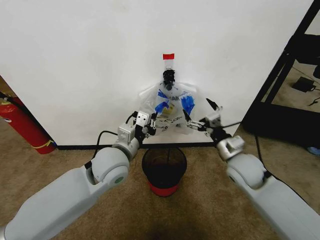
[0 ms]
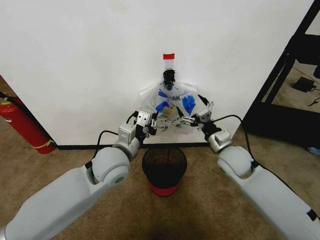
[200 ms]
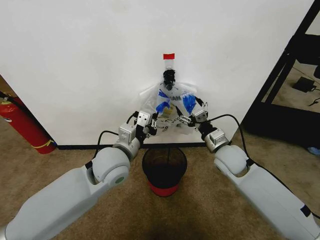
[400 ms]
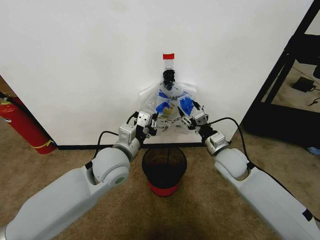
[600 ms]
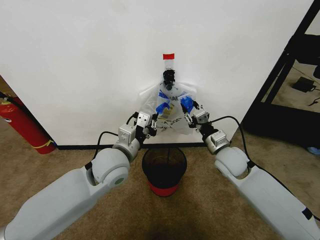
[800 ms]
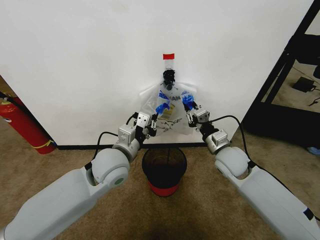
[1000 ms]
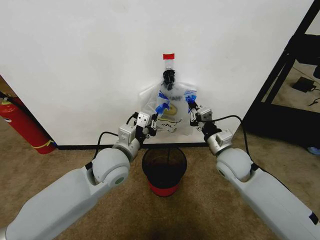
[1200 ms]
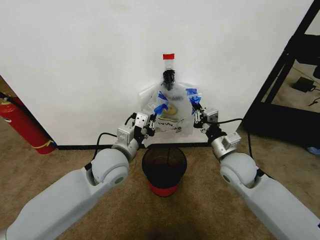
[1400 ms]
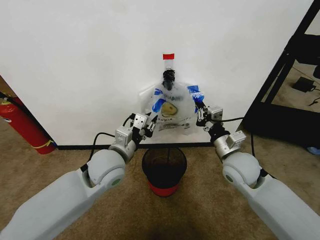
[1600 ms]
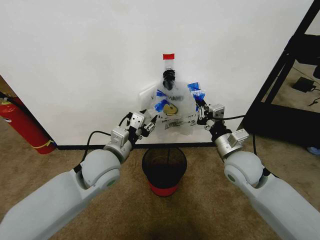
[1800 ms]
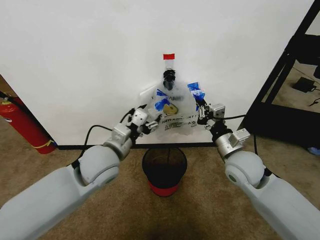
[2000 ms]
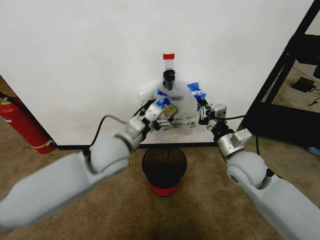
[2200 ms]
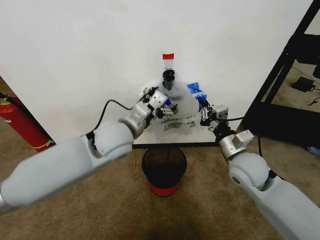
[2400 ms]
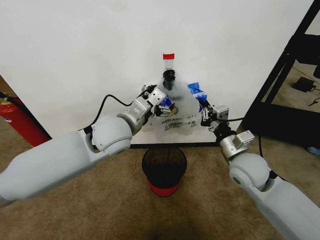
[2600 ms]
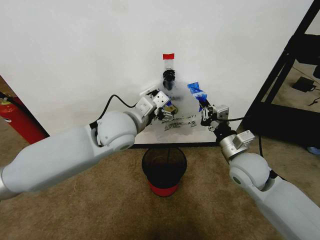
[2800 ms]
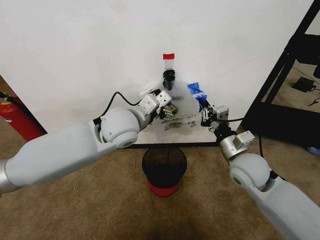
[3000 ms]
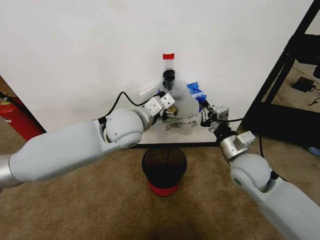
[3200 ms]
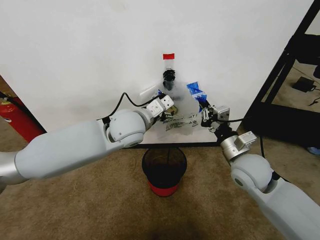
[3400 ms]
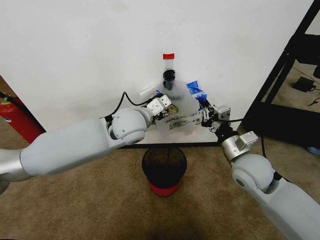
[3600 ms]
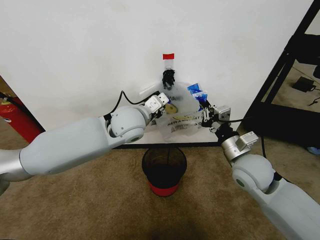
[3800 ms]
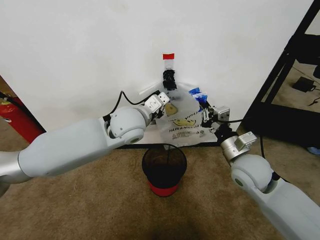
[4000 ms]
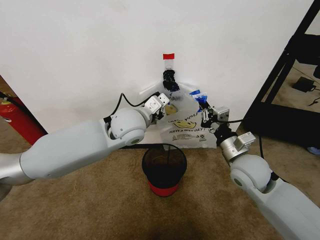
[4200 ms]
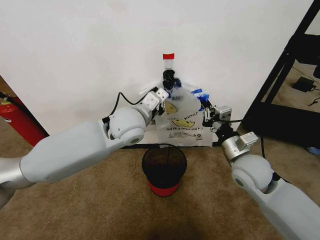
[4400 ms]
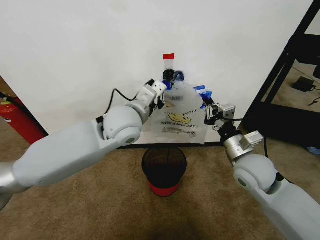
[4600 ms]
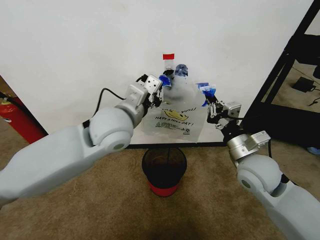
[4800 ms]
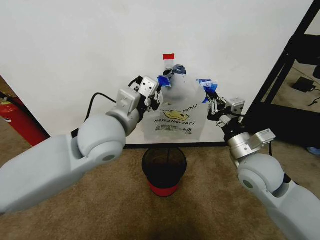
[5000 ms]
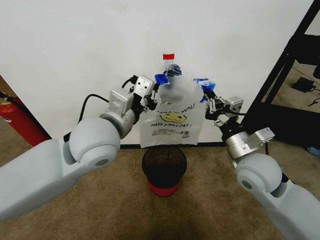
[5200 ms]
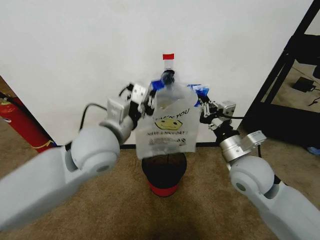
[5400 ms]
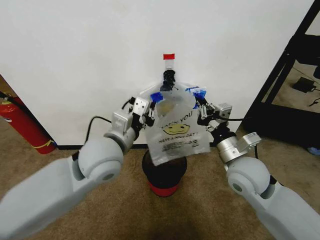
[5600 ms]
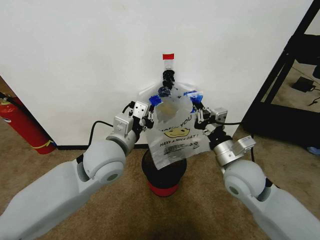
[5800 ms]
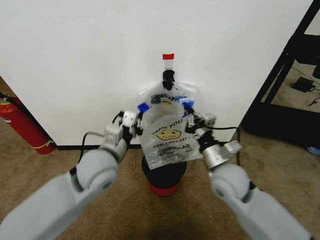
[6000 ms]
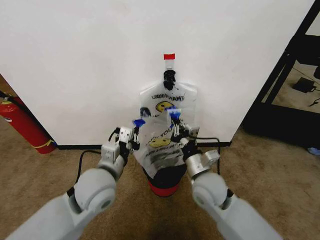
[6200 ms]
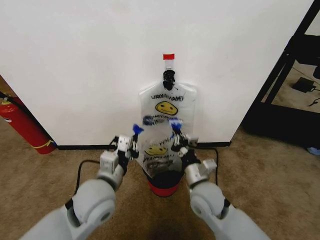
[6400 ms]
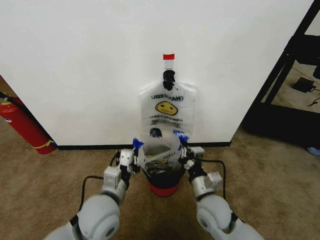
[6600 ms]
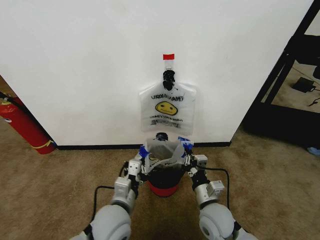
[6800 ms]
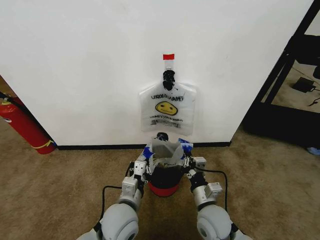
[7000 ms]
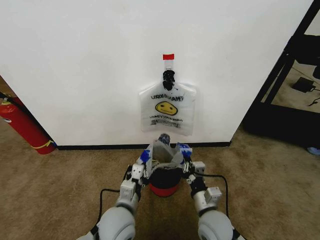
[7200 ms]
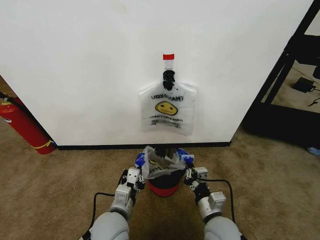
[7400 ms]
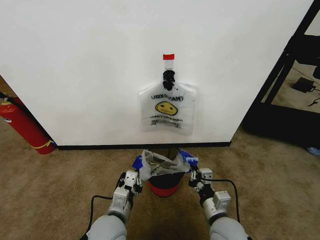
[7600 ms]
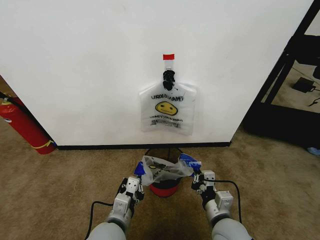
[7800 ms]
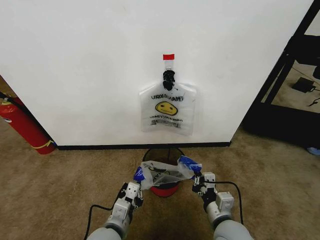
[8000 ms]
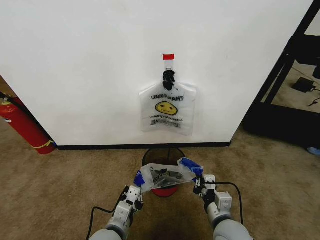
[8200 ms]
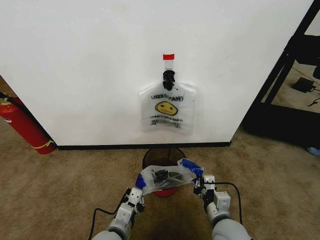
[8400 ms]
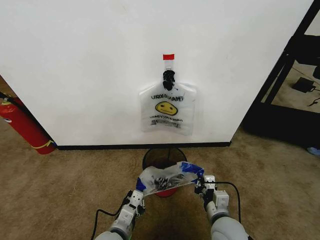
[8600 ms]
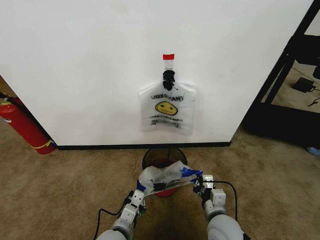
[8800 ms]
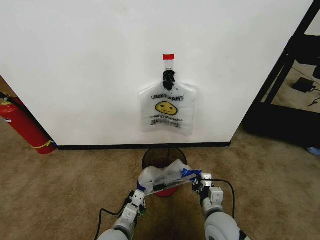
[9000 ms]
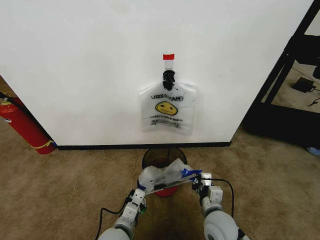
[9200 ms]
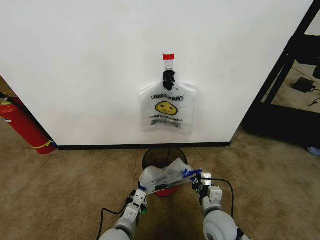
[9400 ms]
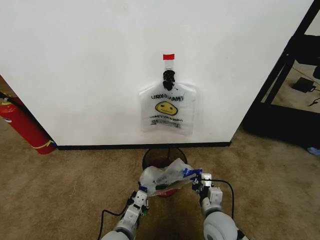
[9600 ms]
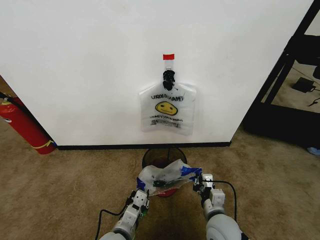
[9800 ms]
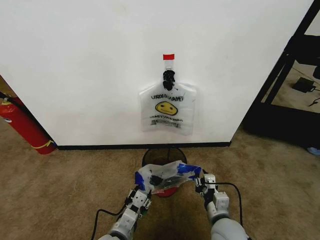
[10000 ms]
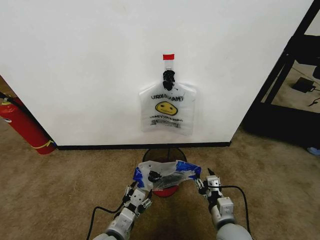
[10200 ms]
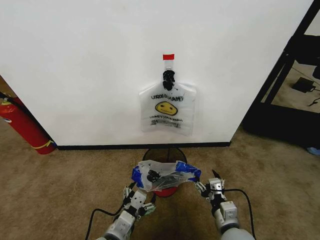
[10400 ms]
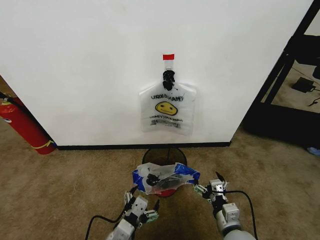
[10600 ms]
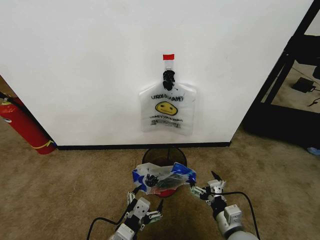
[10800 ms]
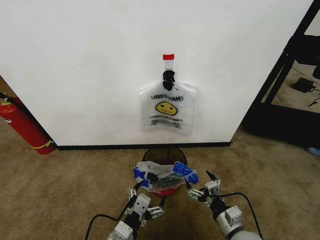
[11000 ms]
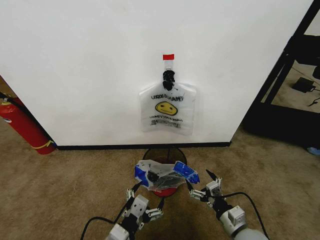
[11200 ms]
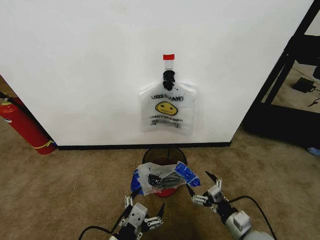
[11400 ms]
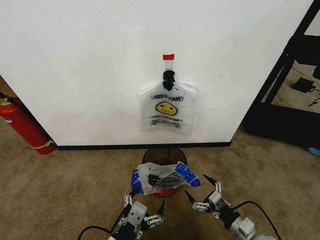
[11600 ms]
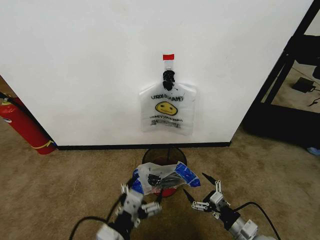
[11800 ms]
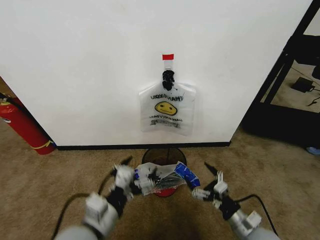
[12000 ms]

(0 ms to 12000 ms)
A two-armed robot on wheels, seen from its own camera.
Task of the whole recording: Pick up the garbage bag from the wall and place it over the trash bin.
0 ms - 1600 ms: The right gripper closes its fingers.
1600 ms - 3000 ms: The left gripper shifts about 10 cm upward and forward, and opens.
3000 ms - 4400 ms: The left gripper closes up.
4400 ms - 6000 ms: The left gripper shifts roughly 15 cm backward, to the left and downward, while the right gripper goes roughly 5 cm to the left.
6000 ms - 7600 ms: The two grippers go approximately 15 cm downward and backward.
7600 ms - 9000 ms: The left gripper shifts by about 5 cm.
9000 ms - 10400 ms: The left gripper shifts by roughly 5 cm, and opens up, while the right gripper ends up approximately 5 cm from where it was, and opens.
10400 ms - 12000 ms: The left gripper moves upward, about 10 cm, while the right gripper is displaced to the right by about 5 cm.

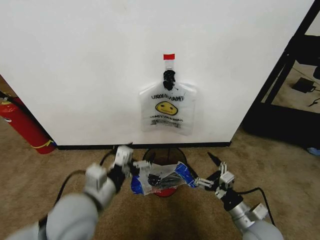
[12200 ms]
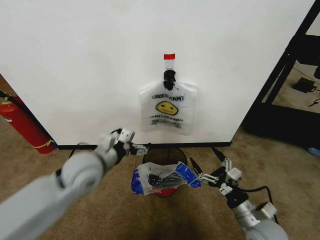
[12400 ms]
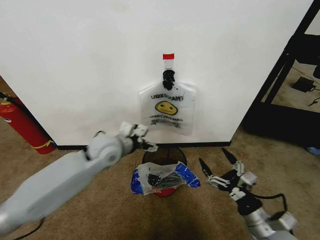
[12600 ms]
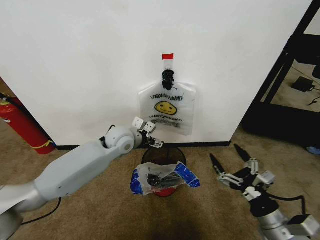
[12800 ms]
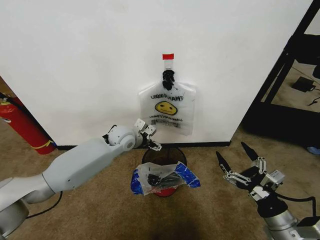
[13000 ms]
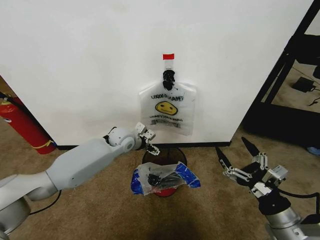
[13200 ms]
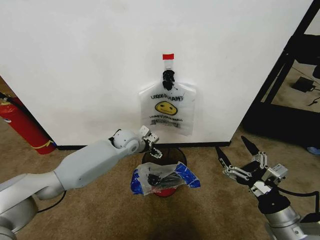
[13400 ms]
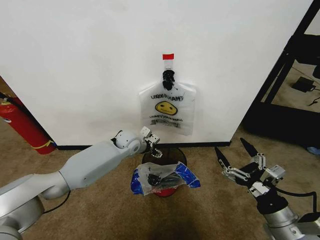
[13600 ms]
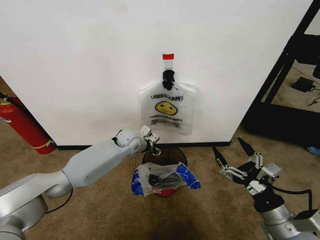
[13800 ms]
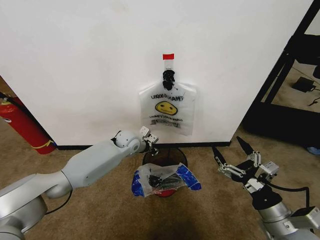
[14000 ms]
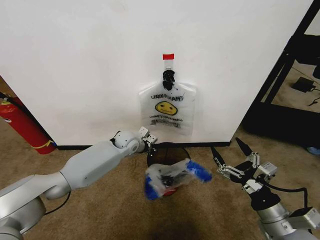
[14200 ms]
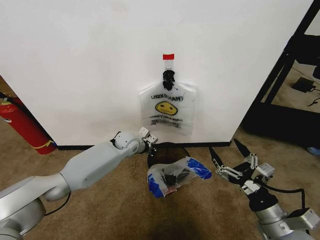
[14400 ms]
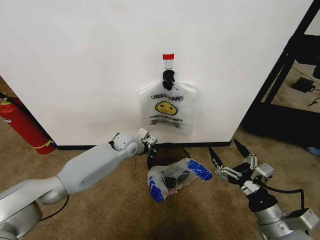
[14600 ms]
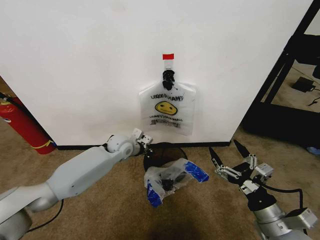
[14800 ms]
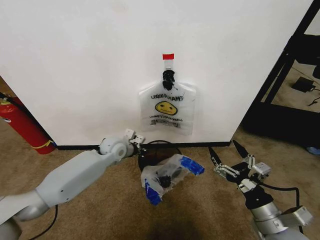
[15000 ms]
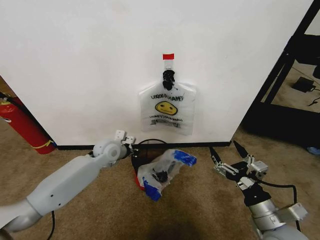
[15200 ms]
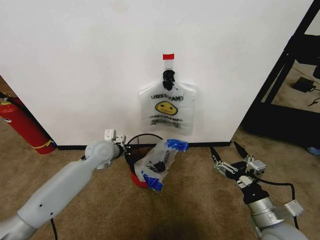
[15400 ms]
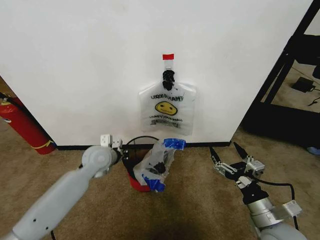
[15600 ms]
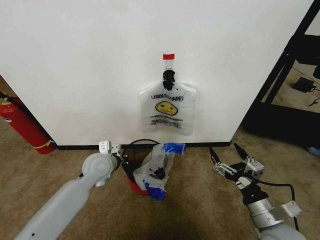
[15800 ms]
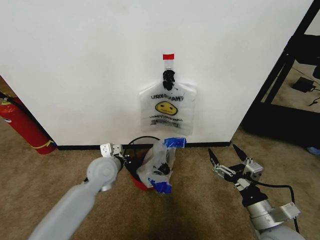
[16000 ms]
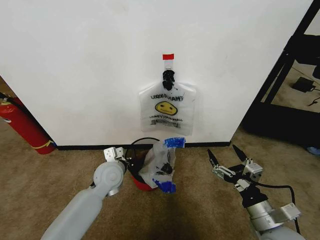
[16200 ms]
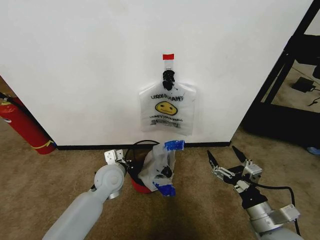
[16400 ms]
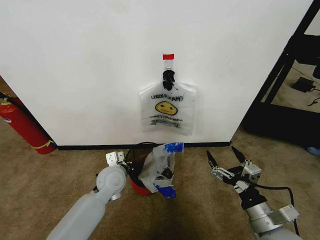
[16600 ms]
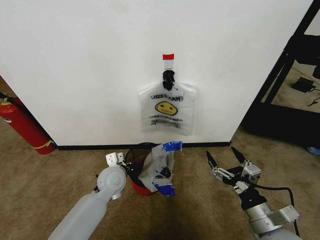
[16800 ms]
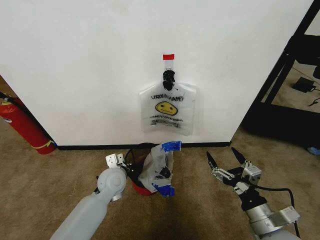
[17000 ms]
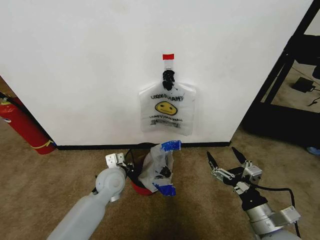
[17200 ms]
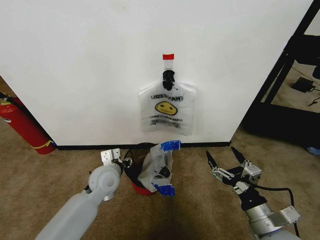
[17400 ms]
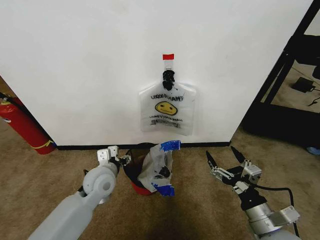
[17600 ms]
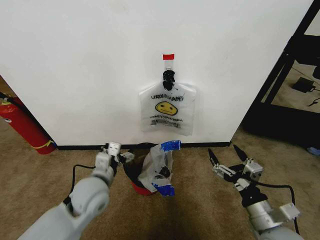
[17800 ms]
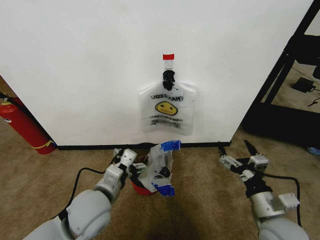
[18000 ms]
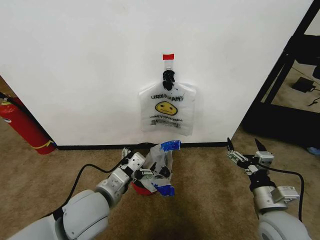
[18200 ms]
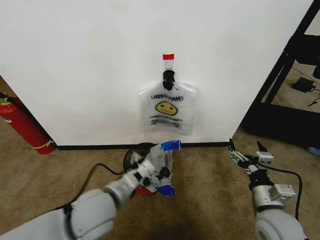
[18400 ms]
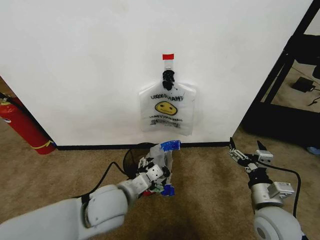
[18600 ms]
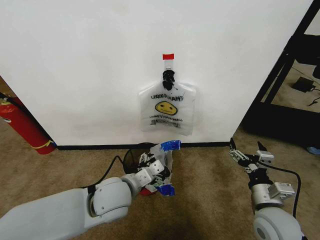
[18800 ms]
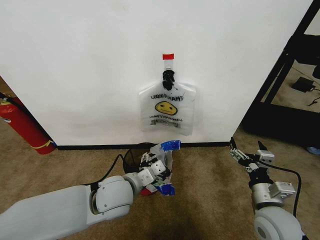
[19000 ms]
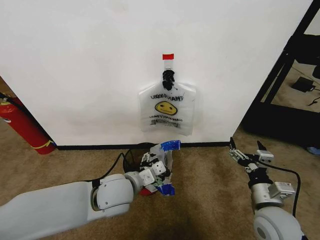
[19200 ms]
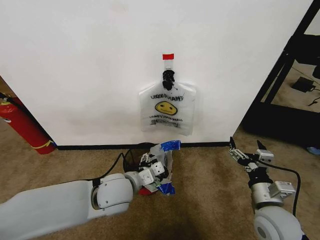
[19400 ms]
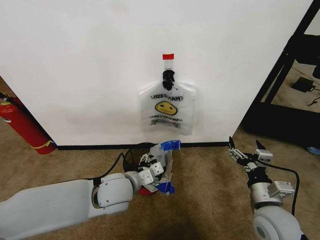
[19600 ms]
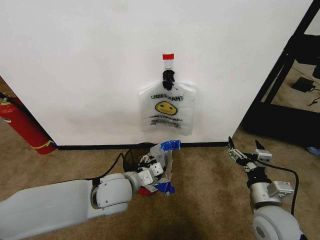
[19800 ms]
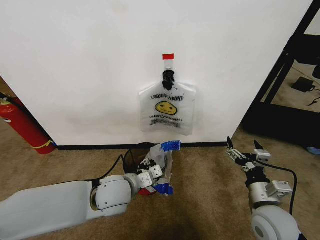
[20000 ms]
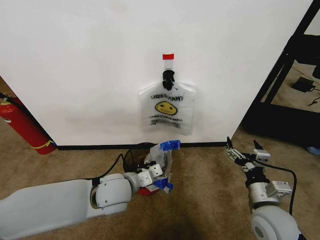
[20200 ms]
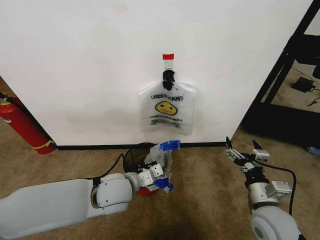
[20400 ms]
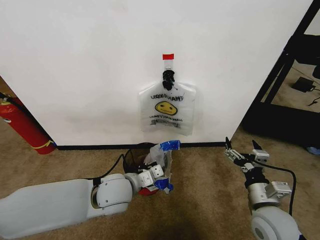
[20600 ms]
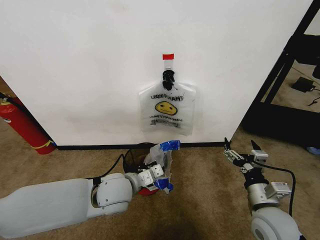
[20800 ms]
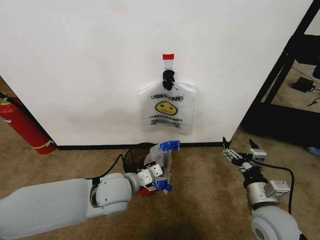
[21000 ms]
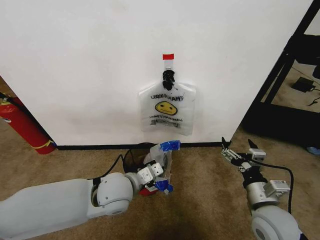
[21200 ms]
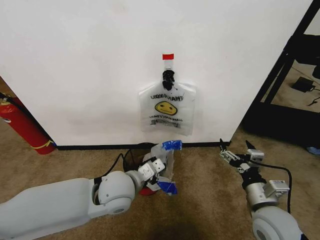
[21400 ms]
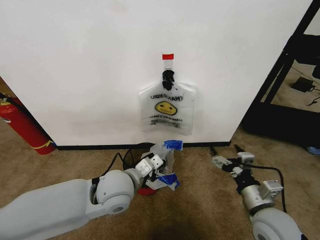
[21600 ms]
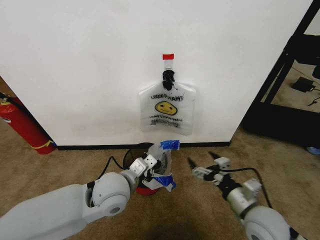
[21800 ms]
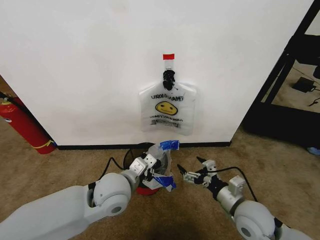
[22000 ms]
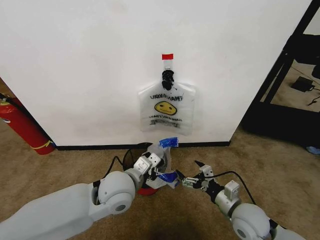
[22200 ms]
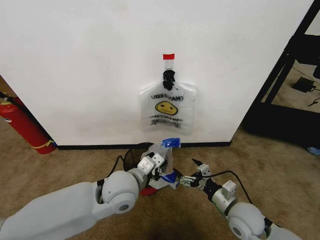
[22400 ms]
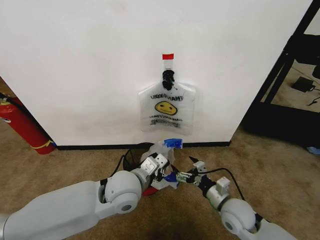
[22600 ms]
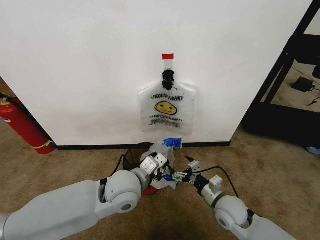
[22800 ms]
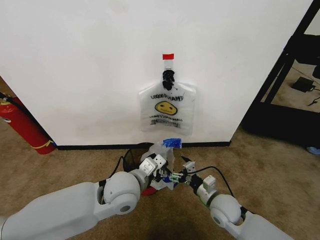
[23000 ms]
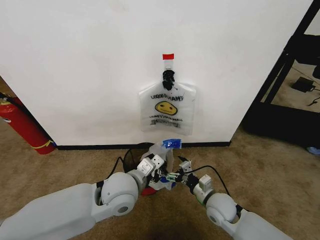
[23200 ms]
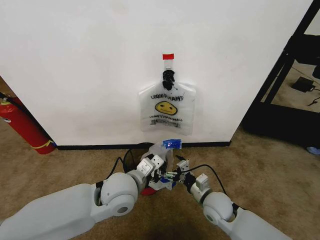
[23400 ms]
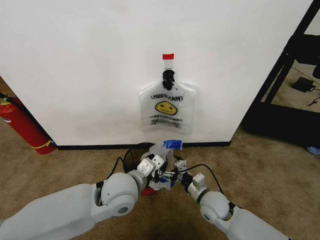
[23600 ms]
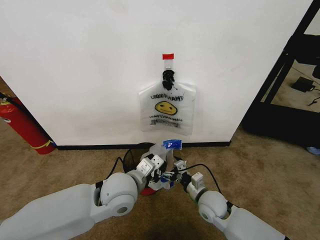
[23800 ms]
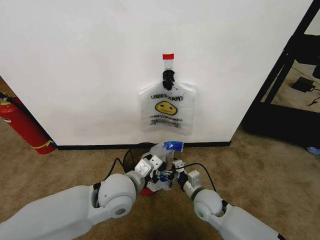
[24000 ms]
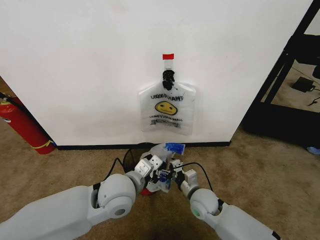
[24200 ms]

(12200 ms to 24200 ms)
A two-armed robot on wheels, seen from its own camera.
Task of the whole recording: Pick up the garbage bag from the wall and place it over the trash bin.
12200 ms - 13800 ms: The left gripper moves forward, approximately 30 cm, and closes its fingers; the right gripper goes approximately 10 cm upward and backward.
13800 ms - 15200 ms: The left gripper travels to the left and backward by some 10 cm, and closes its fingers.
15200 ms - 16600 ms: The left gripper is displaced backward by approximately 10 cm.
16600 ms - 18200 ms: The left gripper travels backward and upward by about 15 cm, and opens.
18200 ms - 19800 ms: The left gripper shifts about 5 cm forward.
19800 ms - 21200 ms: The left gripper closes.
21200 ms - 22600 ms: The right gripper shifts about 10 cm downward.
22600 ms - 24200 ms: The right gripper heads to the left, covering roughly 10 cm.
